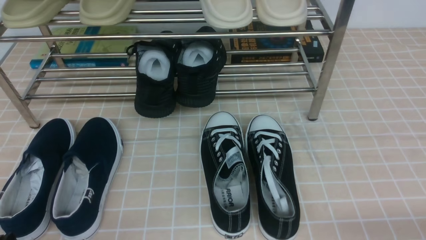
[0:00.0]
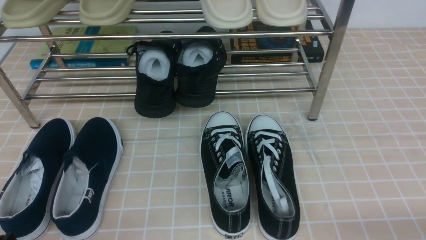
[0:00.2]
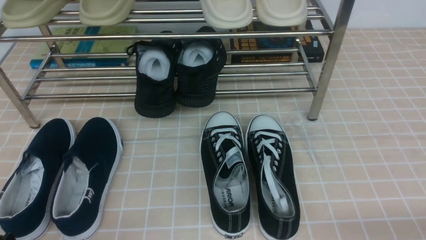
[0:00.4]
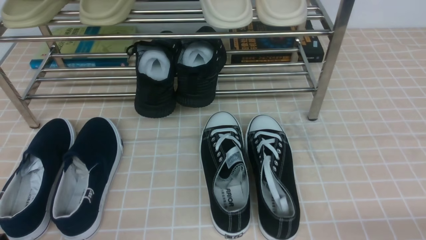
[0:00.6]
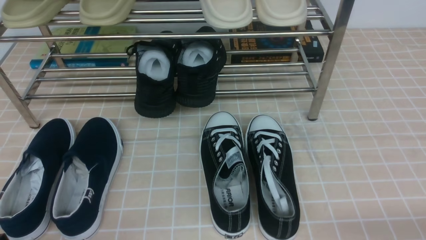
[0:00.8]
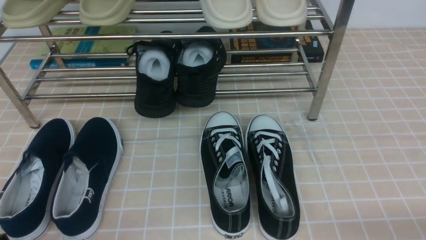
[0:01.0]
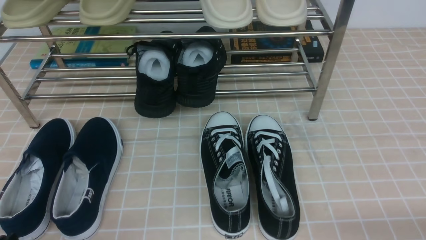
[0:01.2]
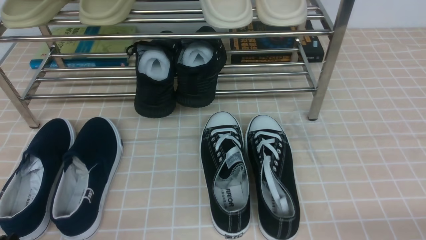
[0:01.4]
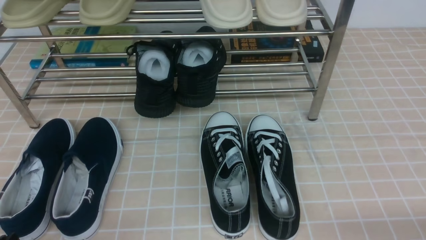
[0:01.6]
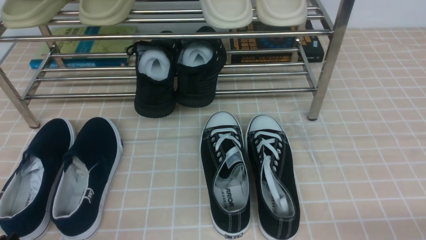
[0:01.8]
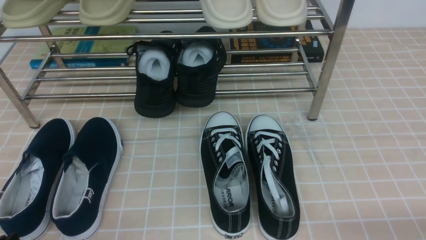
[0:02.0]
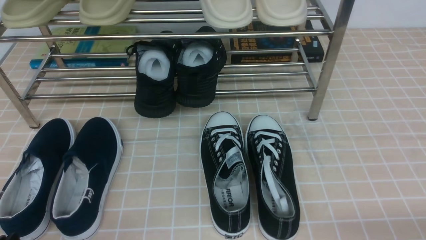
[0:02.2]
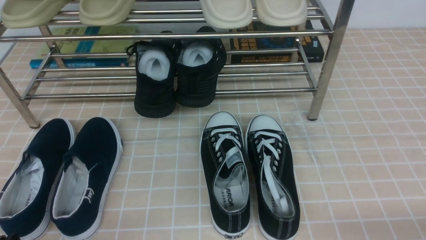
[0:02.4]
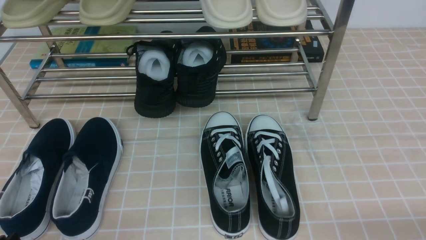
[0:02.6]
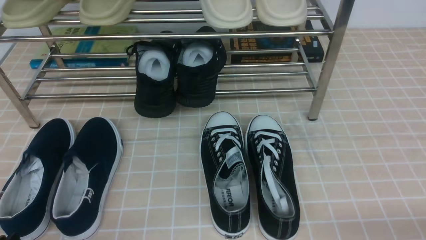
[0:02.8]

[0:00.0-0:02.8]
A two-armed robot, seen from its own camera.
0:00.0 to 0:02.8: Neither gripper changes place.

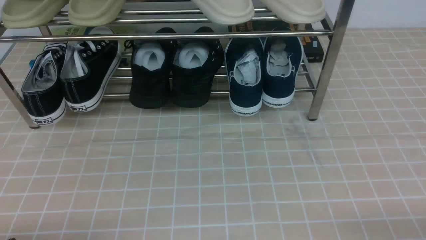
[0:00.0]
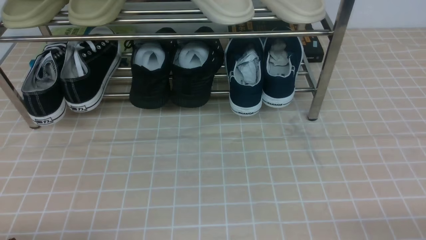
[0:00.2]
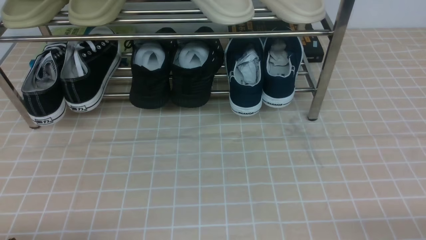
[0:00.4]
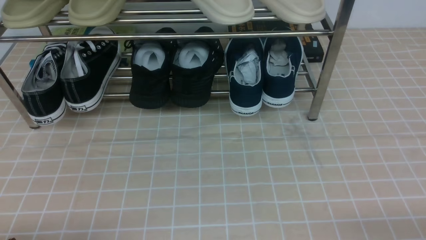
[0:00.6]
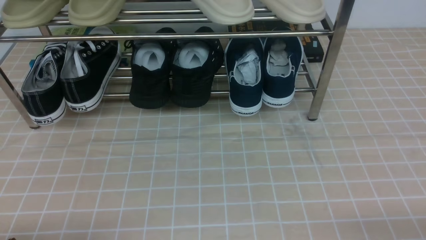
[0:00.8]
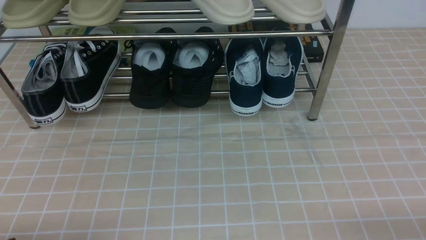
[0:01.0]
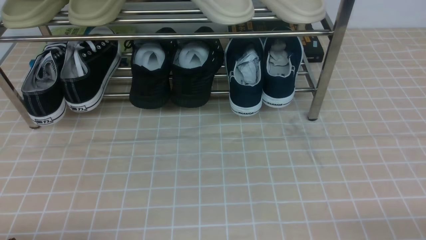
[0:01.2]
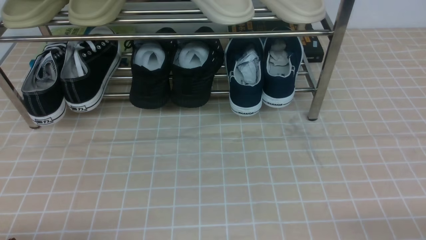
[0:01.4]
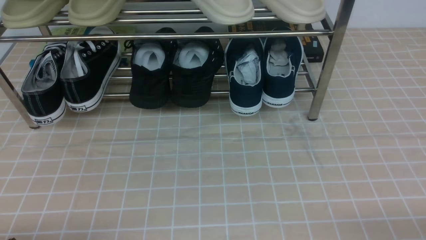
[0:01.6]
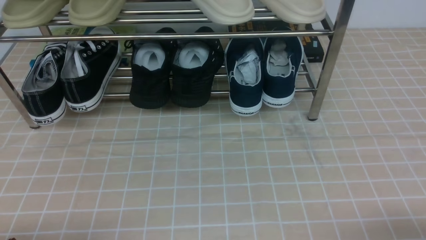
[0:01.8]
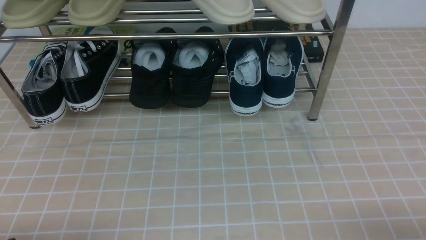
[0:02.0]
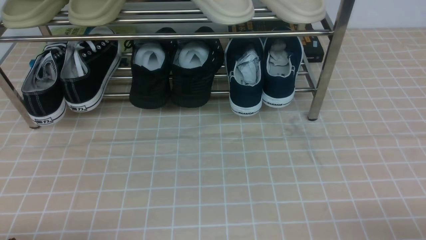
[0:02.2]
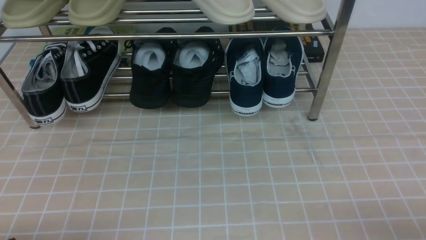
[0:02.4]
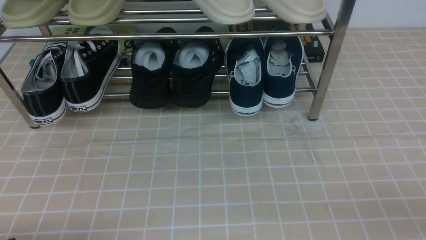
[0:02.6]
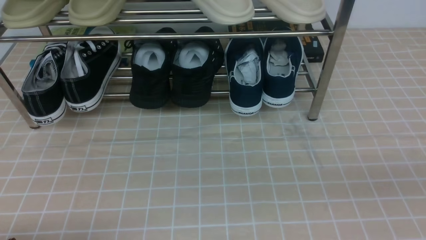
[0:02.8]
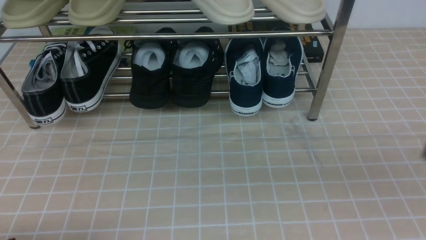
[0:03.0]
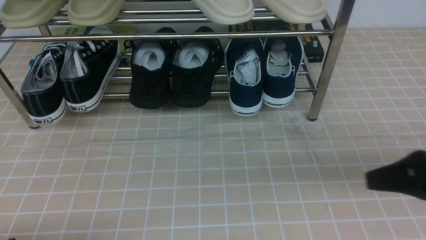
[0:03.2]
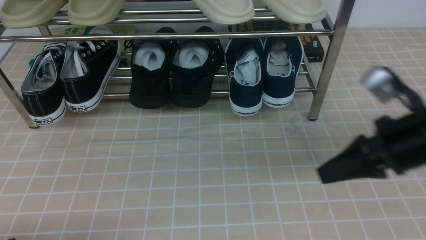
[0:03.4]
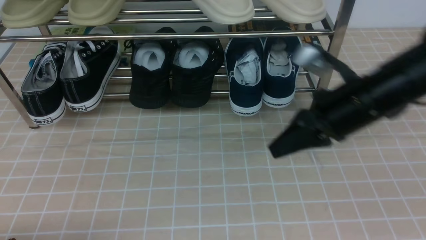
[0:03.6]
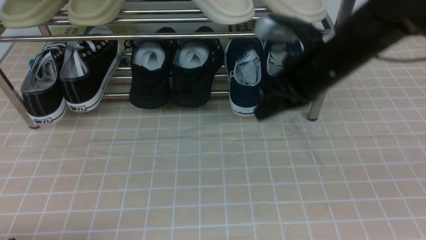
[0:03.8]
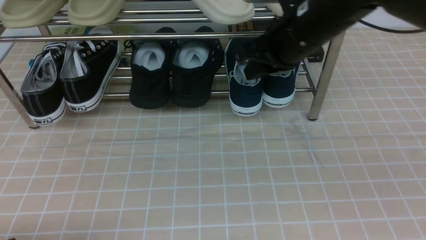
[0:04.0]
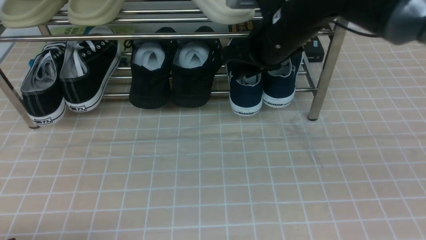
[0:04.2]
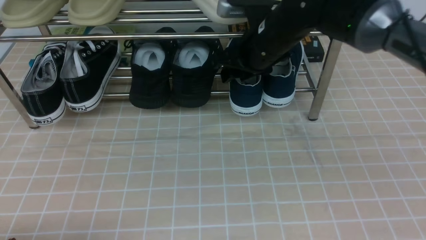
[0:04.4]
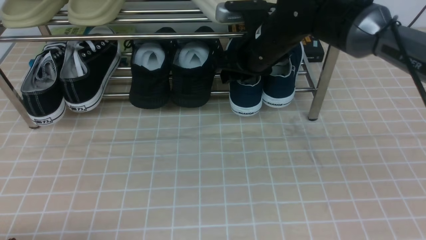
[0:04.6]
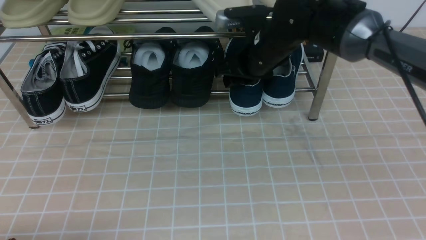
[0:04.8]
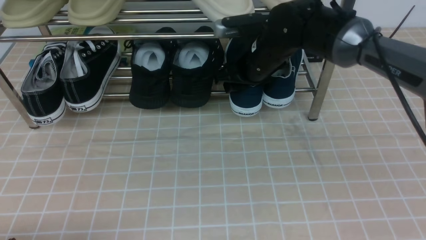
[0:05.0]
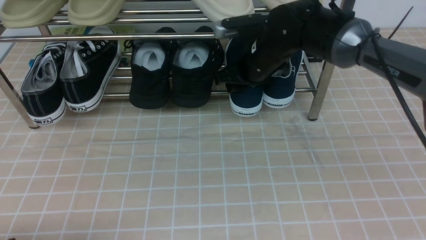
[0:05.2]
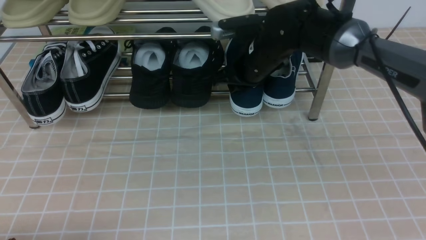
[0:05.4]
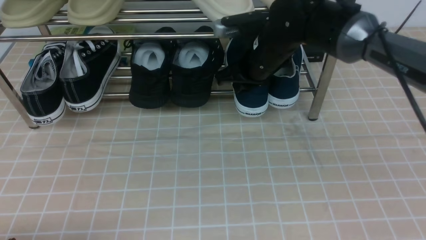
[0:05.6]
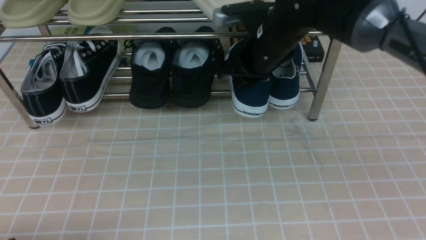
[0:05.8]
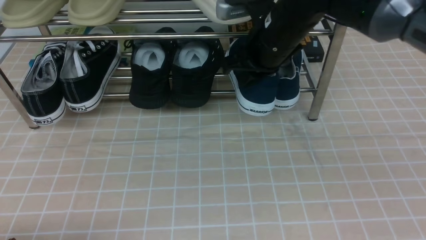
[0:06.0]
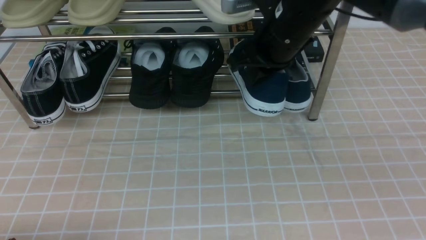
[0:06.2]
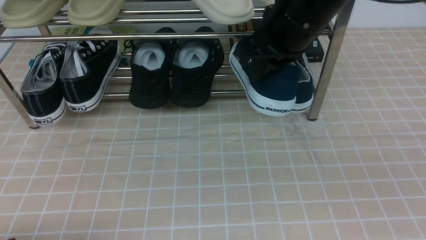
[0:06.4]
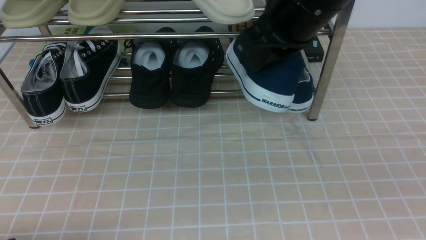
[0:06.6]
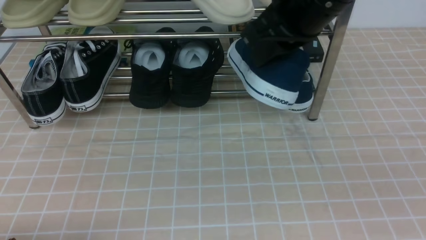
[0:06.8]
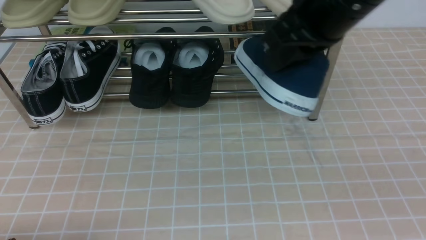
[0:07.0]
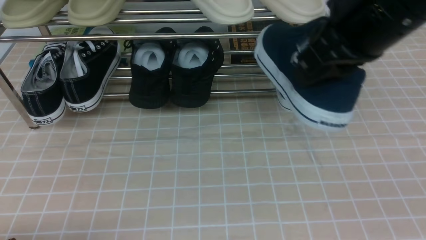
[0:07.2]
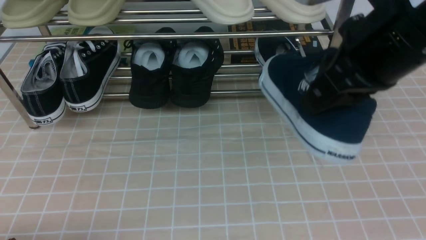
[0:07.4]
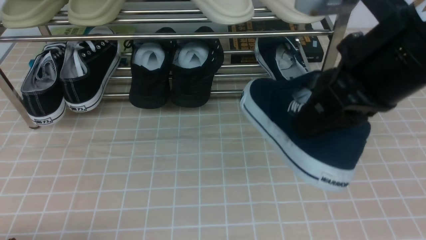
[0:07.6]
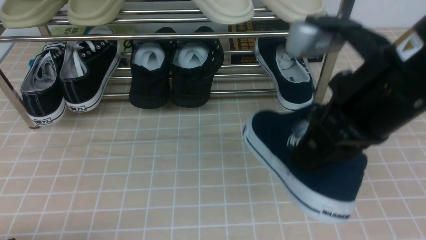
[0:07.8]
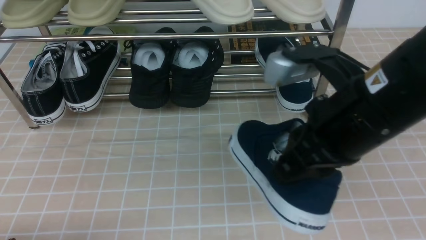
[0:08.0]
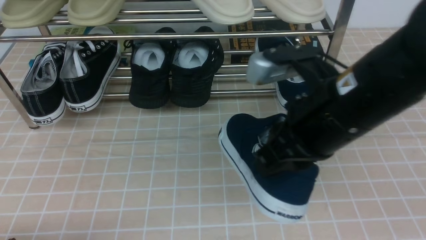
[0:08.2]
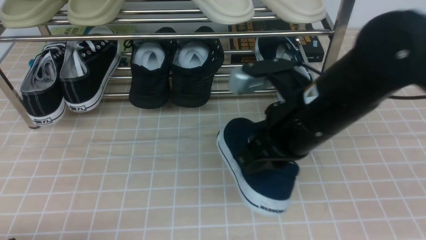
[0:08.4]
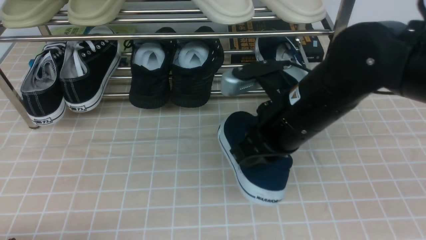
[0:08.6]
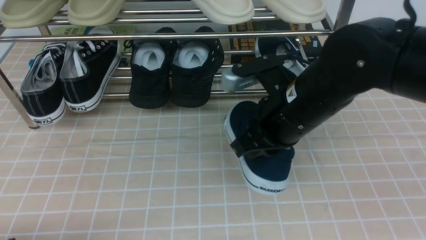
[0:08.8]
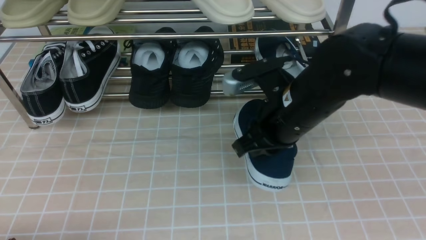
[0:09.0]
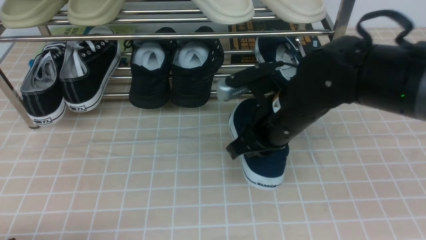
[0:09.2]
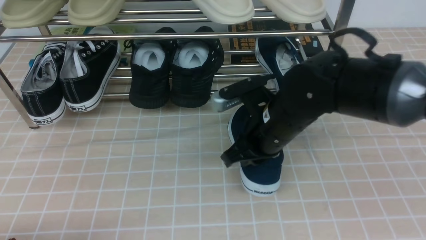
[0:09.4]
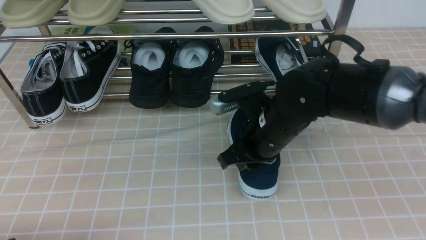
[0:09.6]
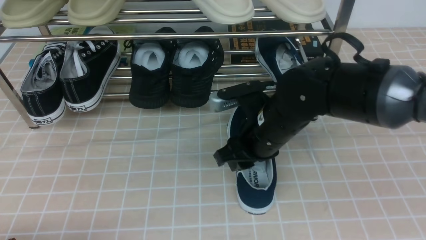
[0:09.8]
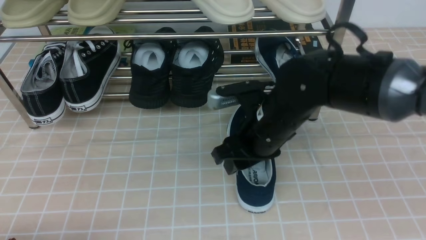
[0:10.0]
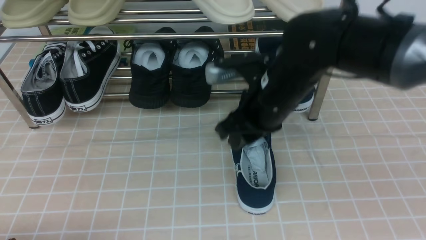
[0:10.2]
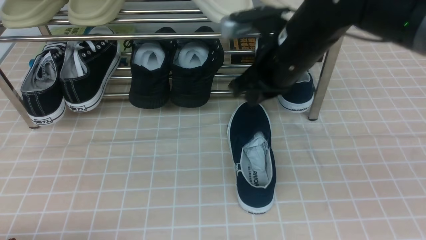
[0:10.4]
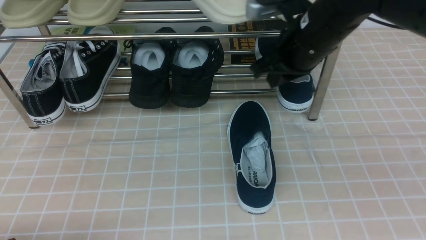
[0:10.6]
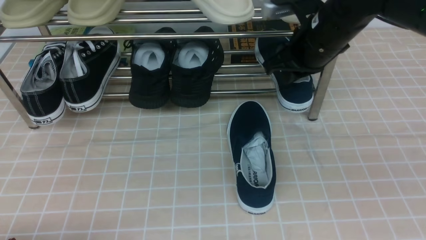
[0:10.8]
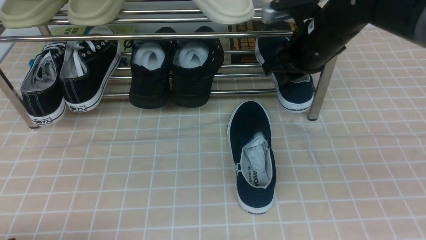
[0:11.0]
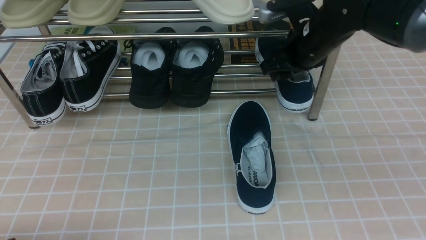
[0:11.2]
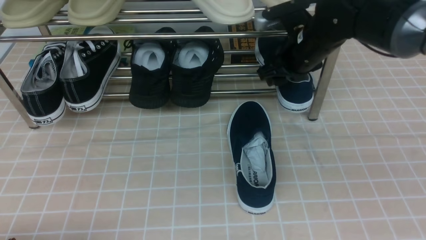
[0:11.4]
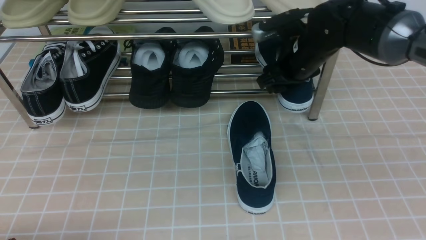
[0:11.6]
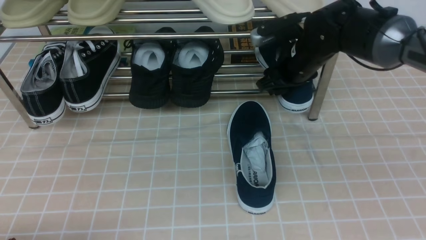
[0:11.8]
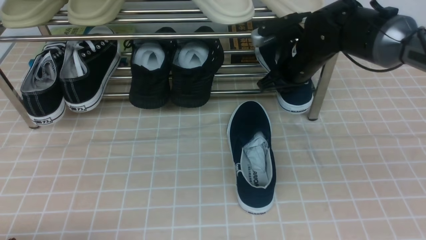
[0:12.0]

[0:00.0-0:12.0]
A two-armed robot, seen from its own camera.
Step, 0:00.0 to 0:05.4: use the right arm to clamp a shoe on the right side of the shoe rack.
Step, 0:05.6 to 0:10.0: use the right arm to take out the clamped shoe from the shoe rack and put it down.
Step, 0:10.2 to 0:11.6: use the right arm to clamp a shoe on the right side of the shoe rack.
0:01.6 to 0:03.0: The right gripper heads upward and forward, covering some 15 cm, and closes up.
0:03.0 to 0:04.4: The right gripper is displaced forward and to the left by some 35 cm, and opens.
0:04.4 to 0:06.0: The right gripper closes.
0:06.0 to 0:07.6: The right gripper is displaced backward and upward by about 20 cm.
0:07.6 to 0:09.0: The right gripper heads downward, forward and to the left, covering roughly 15 cm.
0:09.0 to 0:10.4: The right gripper heads forward, covering approximately 5 cm, and opens, then closes once more.
0:10.4 to 0:12.0: The right gripper goes roughly 10 cm forward and downward, and opens and closes again.

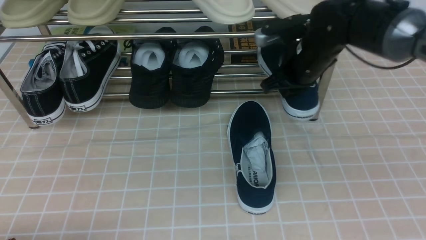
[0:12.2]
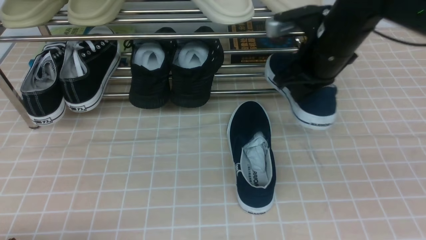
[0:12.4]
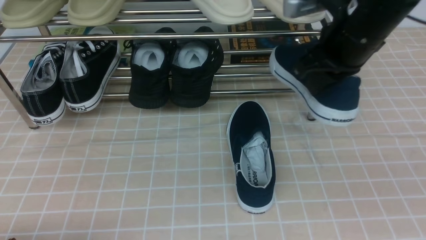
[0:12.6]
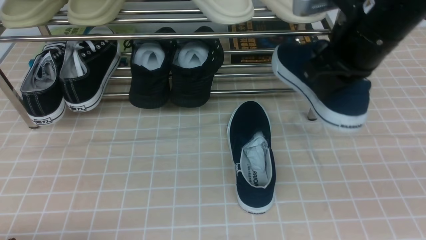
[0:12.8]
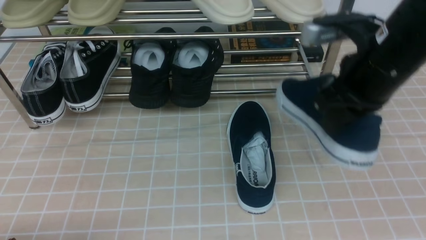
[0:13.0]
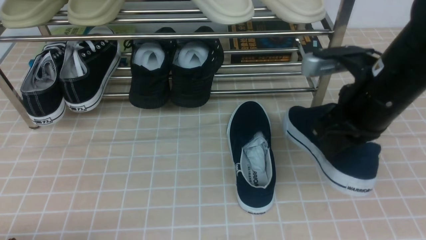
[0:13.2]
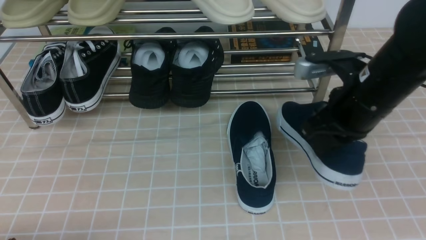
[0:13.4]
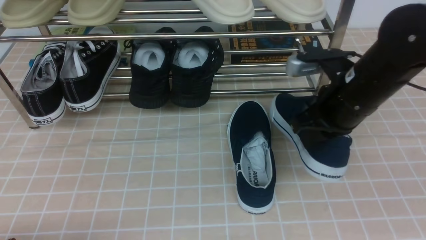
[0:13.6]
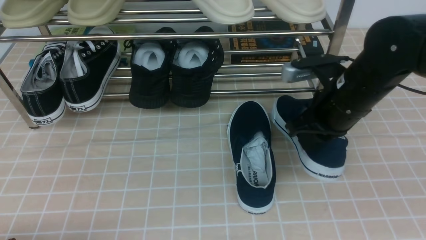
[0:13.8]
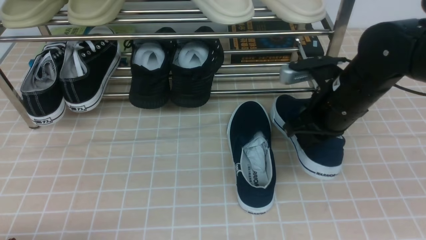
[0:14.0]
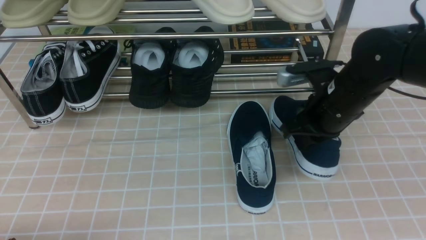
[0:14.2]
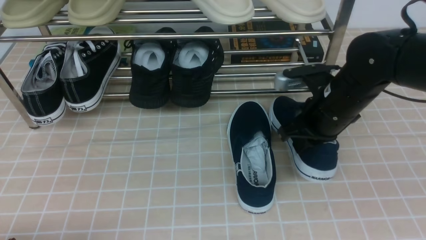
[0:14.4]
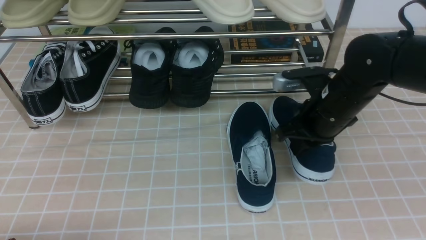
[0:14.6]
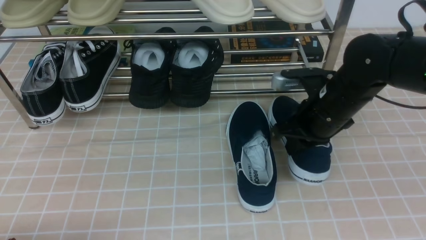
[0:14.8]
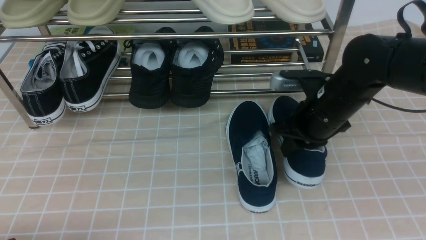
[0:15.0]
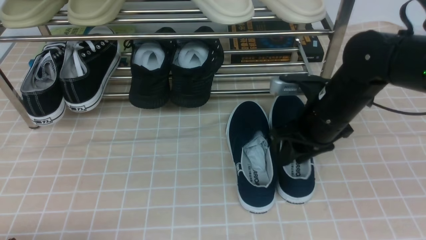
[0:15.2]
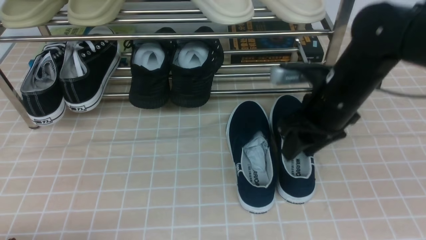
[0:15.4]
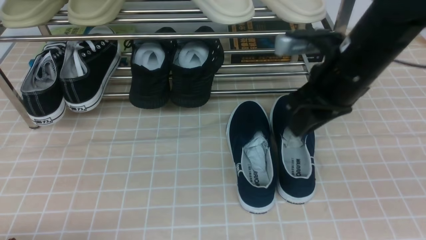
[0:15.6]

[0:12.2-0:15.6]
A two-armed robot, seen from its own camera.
Step, 0:12.2 to 0:15.4: use the right arm to take out the clamped shoe from the shoe rack and put it down.
0:12.2 to 0:13.8: The right gripper is displaced backward by roughly 10 cm.
0:13.8 to 0:15.6: The right gripper goes approximately 5 cm upward, and opens.
